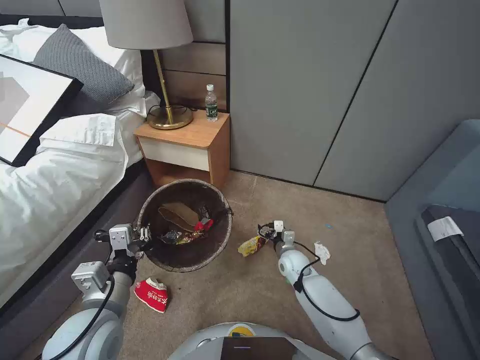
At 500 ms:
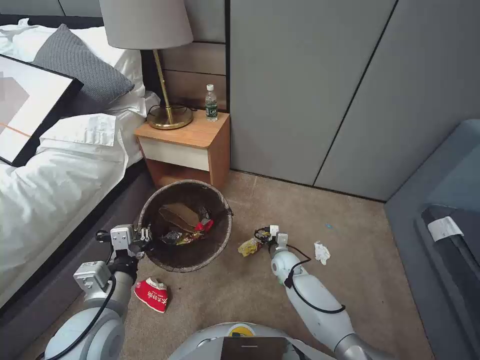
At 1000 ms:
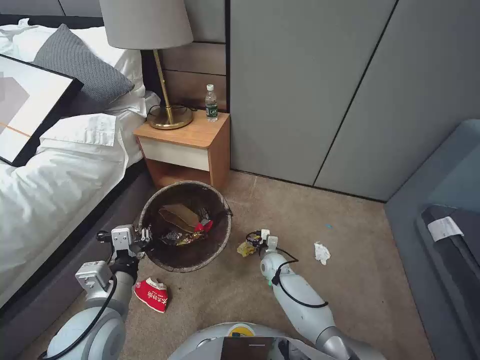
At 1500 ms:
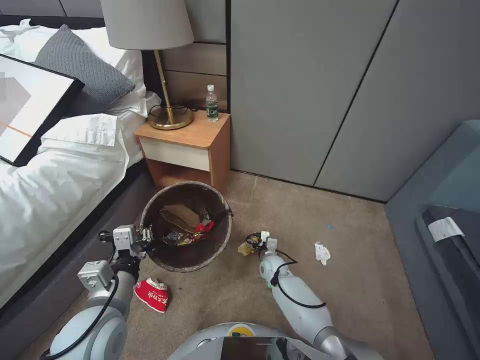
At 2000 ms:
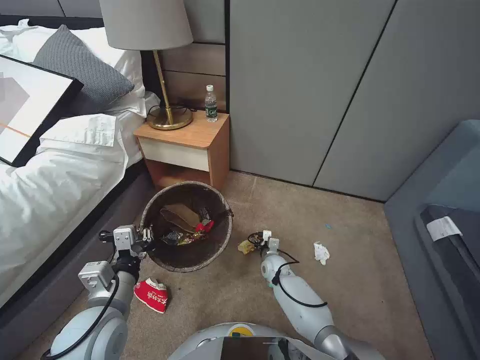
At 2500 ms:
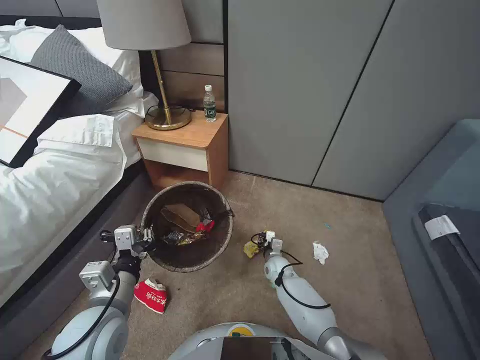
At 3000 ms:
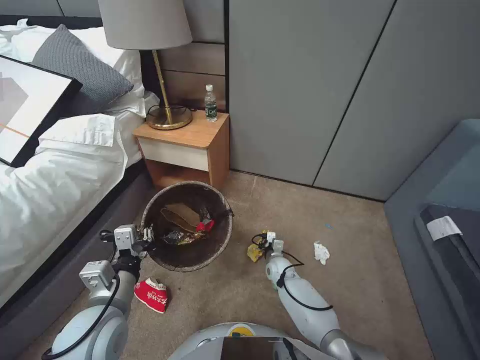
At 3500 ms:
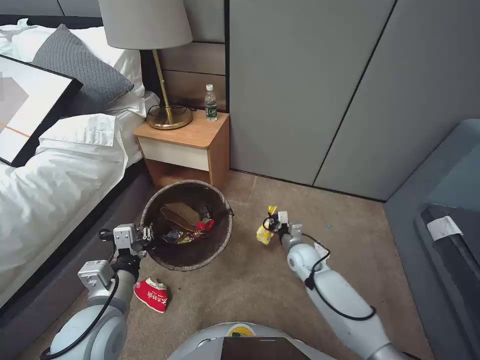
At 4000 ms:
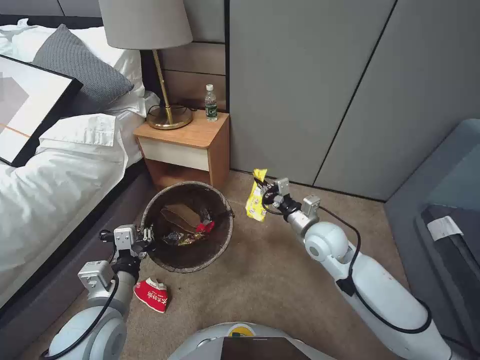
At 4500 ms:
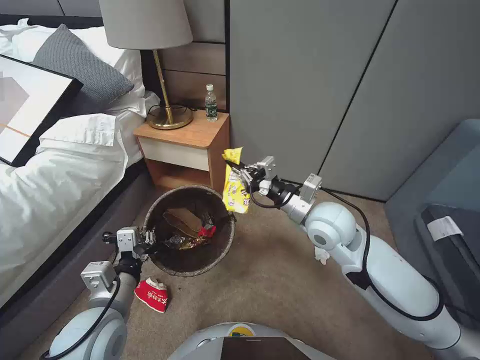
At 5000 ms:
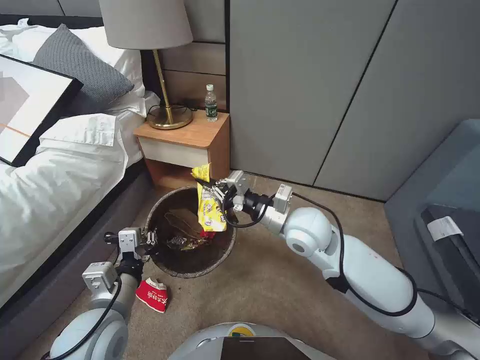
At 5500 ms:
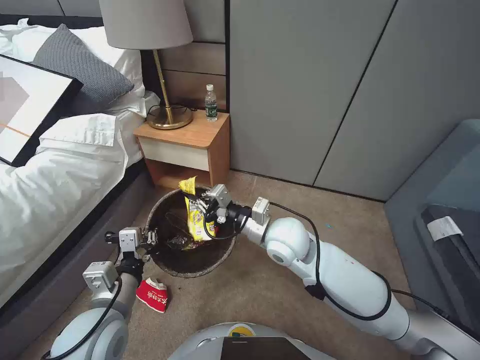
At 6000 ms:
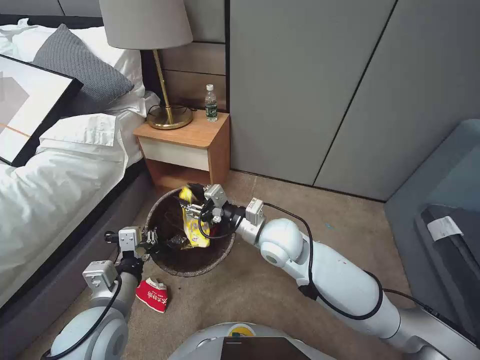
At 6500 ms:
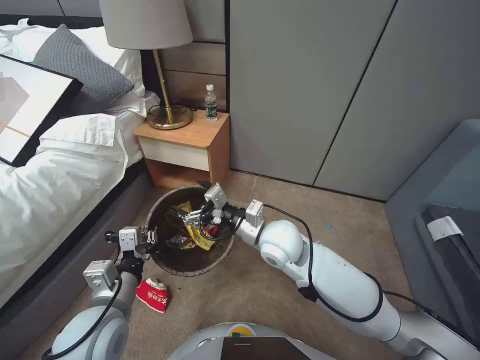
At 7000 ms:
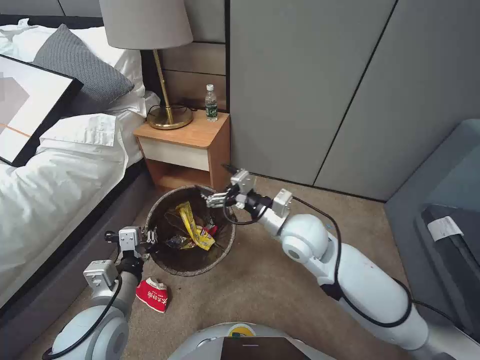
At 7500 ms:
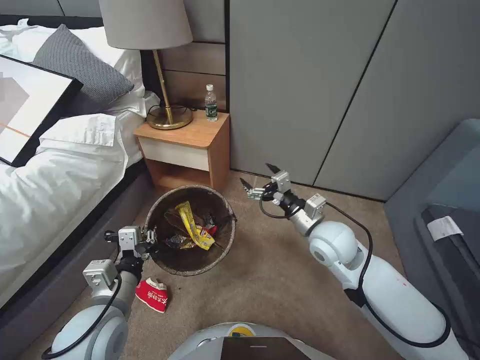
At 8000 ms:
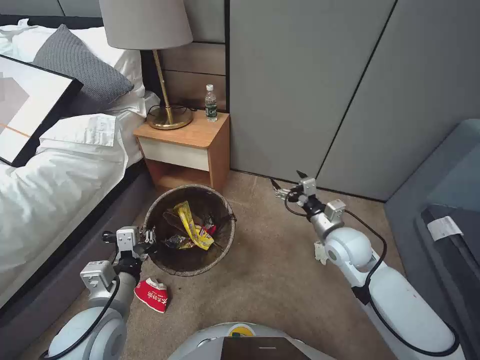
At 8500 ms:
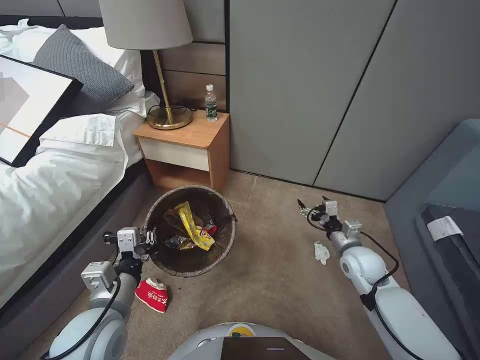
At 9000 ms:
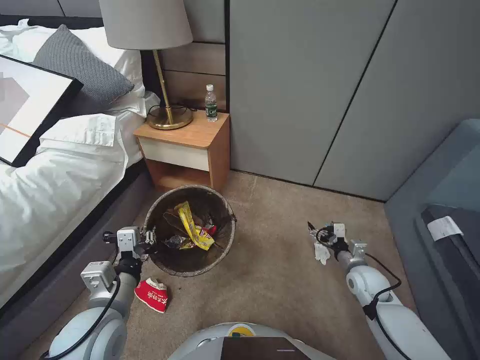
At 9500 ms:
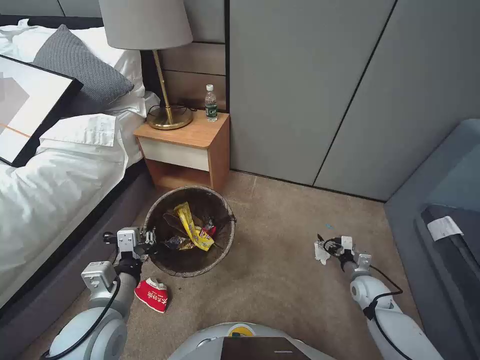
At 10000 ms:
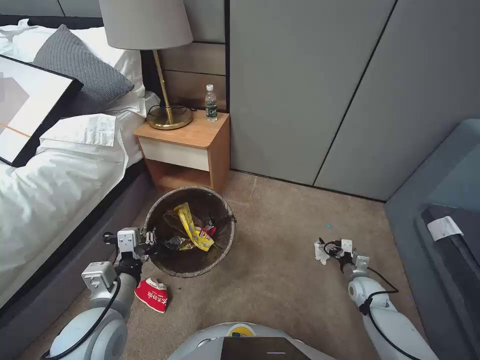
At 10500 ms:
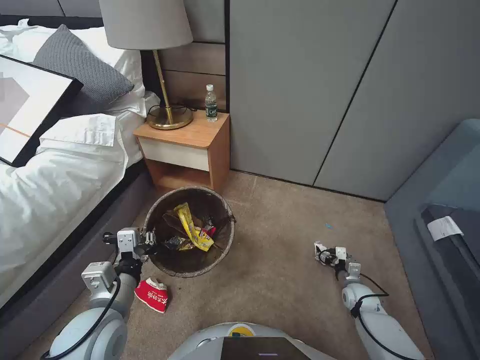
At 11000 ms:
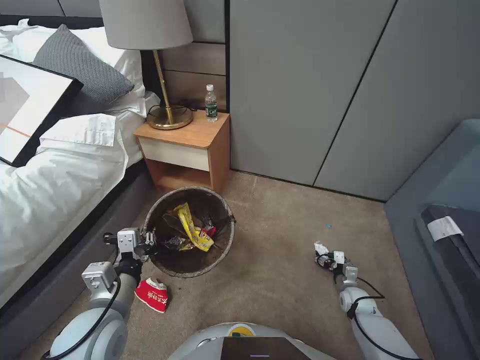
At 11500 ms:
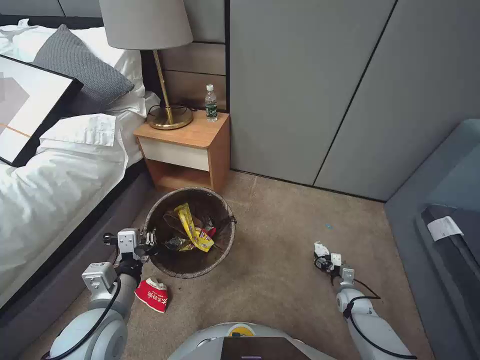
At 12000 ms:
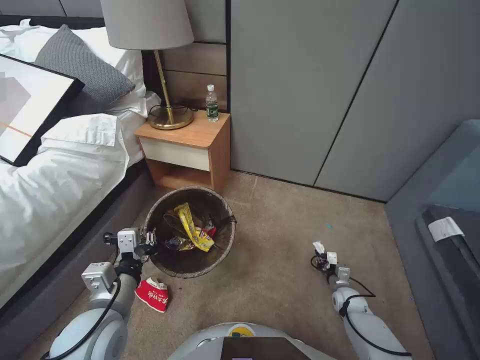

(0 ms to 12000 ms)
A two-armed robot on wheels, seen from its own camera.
Task of the whole recording: Pick up the trash bin, then pick up the garbage from the floor and place it into the trash bin.
0 ms - 2000 ms: The right gripper heads downward and to the left, covering roughly 10 cm.
2000 ms - 4000 ms: The right gripper heads upward, covering about 25 cm, and closes.
4000 ms - 6000 ms: The right gripper moves to the left and upward, roughly 15 cm, and opens up.
6000 ms - 8000 ms: The right gripper heads to the right, covering approximately 15 cm, and opens up.
8000 ms - 10000 ms: The right gripper moves downward and to the right, some 30 cm.
10000 ms - 12000 ms: The right gripper moves downward, roughly 10 cm, and closes up.

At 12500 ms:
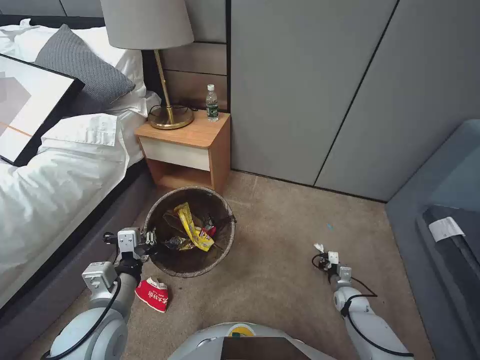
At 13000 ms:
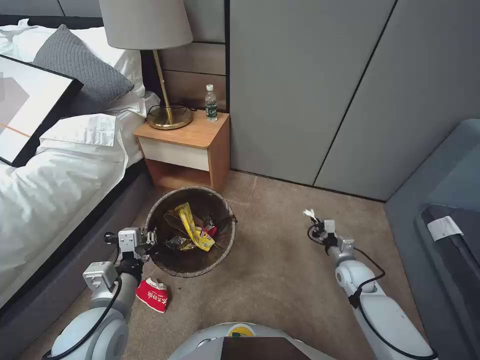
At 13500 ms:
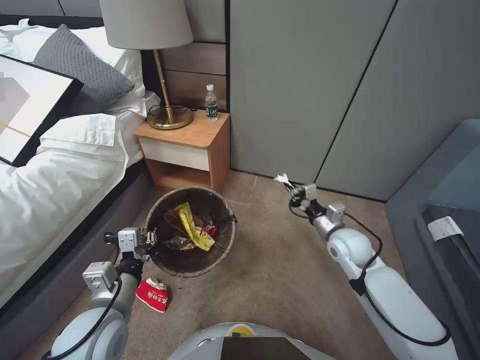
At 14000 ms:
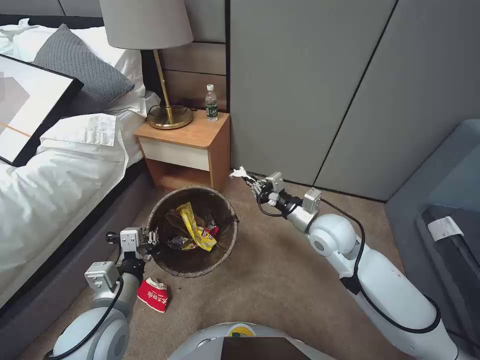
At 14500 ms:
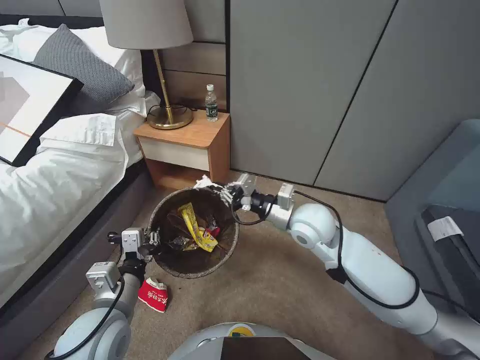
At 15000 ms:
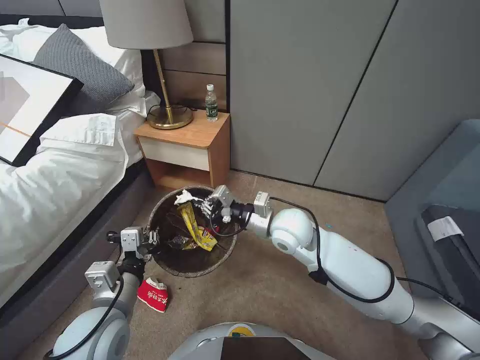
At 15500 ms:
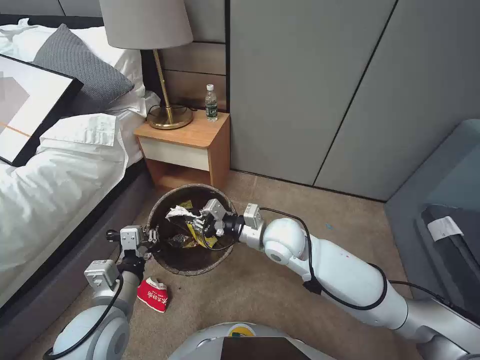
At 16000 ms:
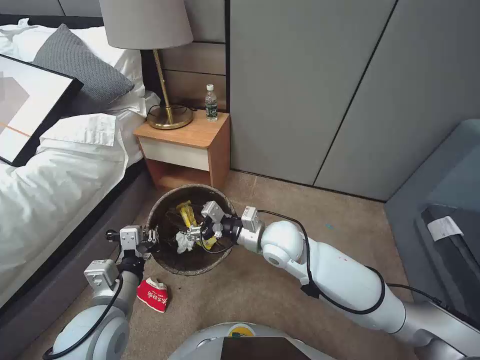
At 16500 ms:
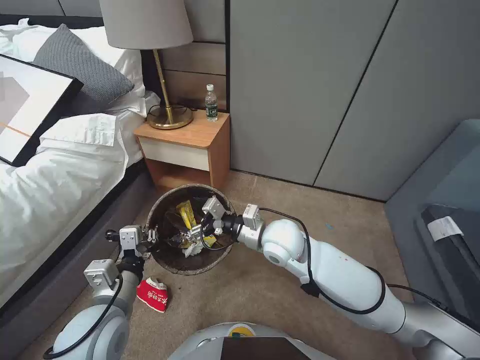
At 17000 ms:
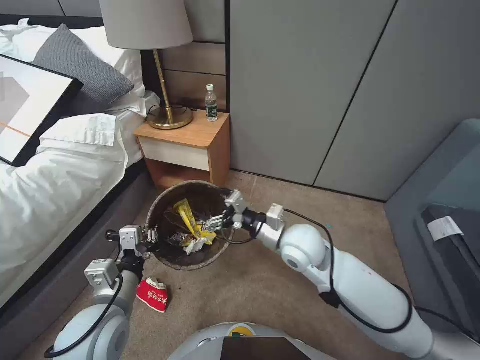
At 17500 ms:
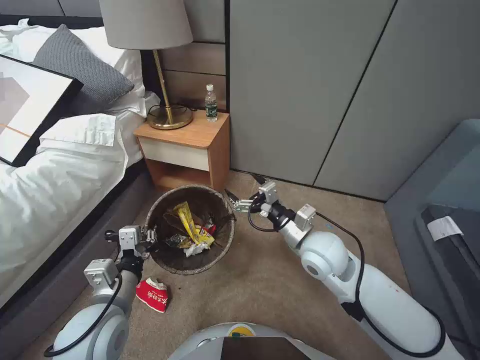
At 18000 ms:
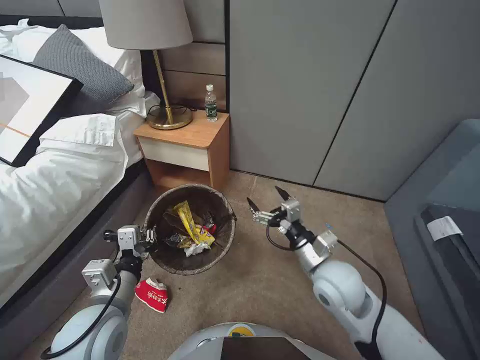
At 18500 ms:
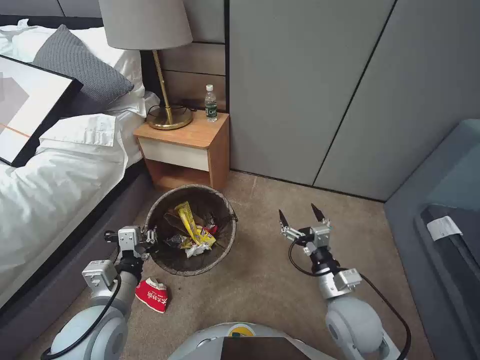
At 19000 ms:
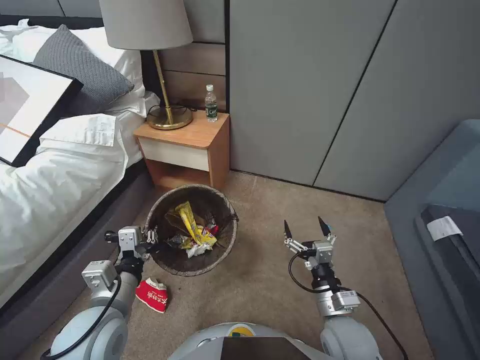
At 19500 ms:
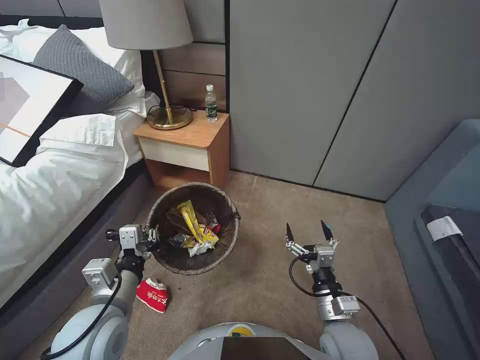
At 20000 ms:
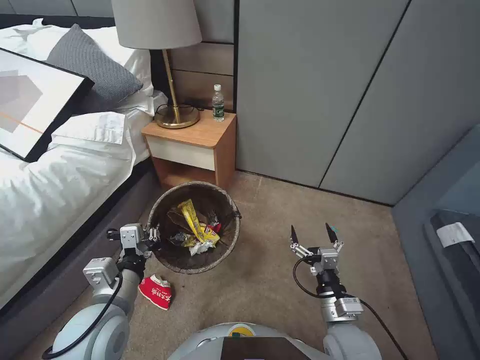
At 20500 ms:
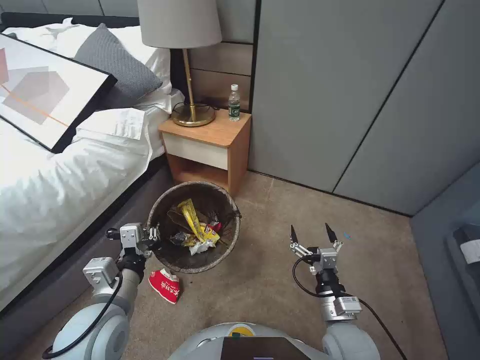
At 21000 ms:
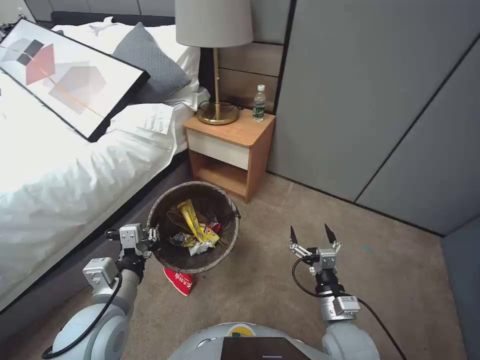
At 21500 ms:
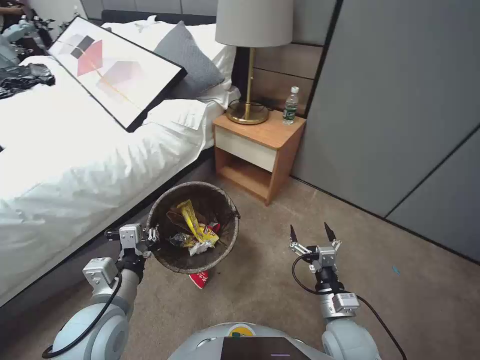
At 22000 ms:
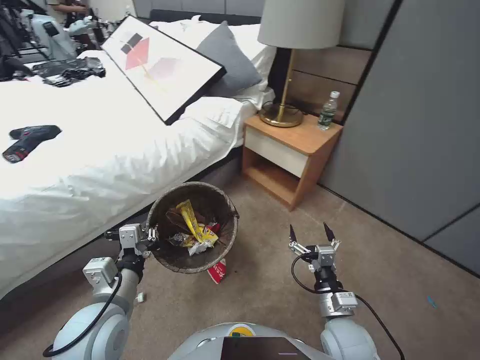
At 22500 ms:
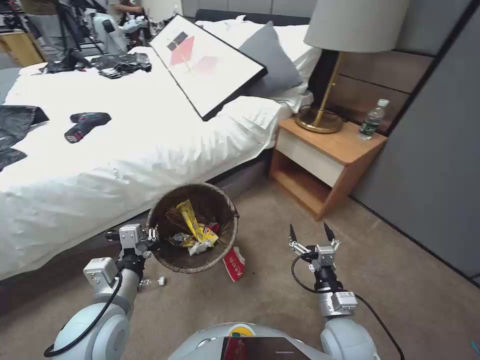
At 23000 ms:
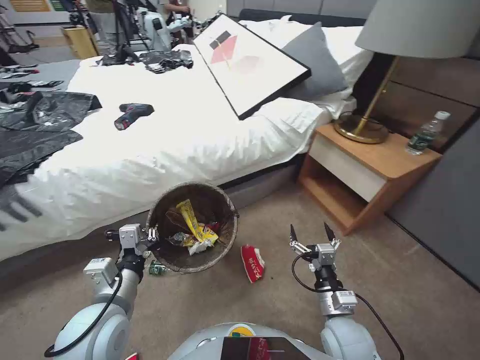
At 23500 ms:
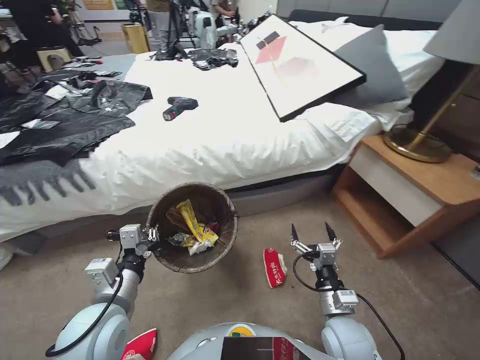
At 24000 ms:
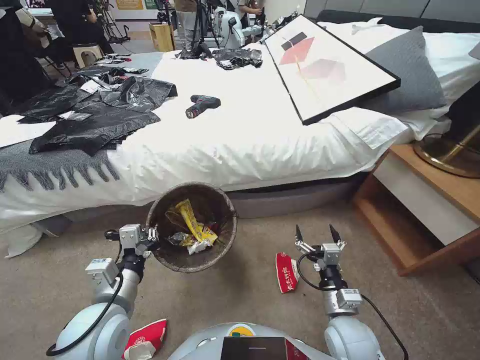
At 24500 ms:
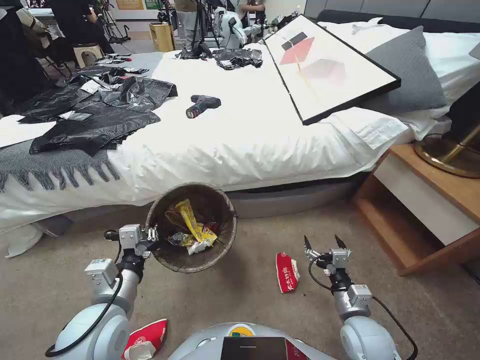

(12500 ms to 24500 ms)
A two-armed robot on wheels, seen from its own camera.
Task of the whole recording: Pick up the trash bin, then pick up the garbage from the floor and place it into the trash bin.
12500 ms - 14500 ms: The right gripper goes some 40 cm upward and to the left.
14500 ms - 16500 ms: The right gripper travels to the left by approximately 10 cm, and opens up.
16500 ms - 18500 ms: The right gripper shifts some 20 cm to the right, backward and downward.
18500 ms - 20500 ms: The right gripper heads backward and downward, covering about 10 cm.

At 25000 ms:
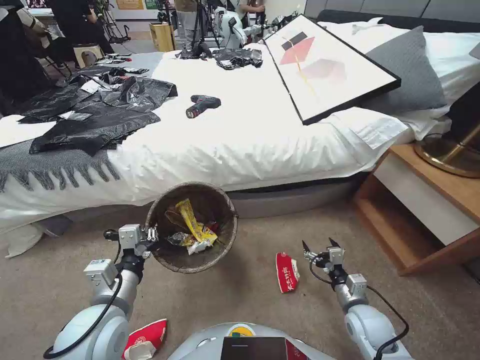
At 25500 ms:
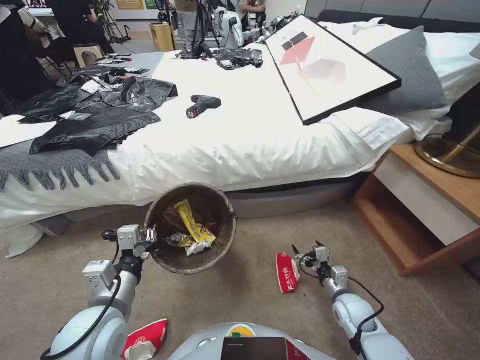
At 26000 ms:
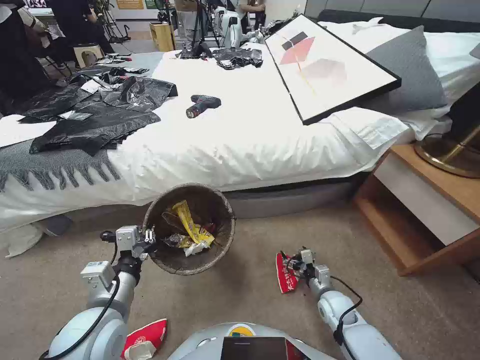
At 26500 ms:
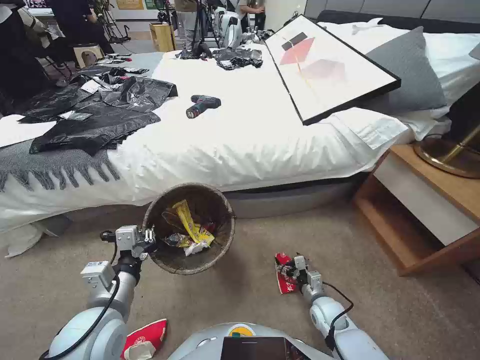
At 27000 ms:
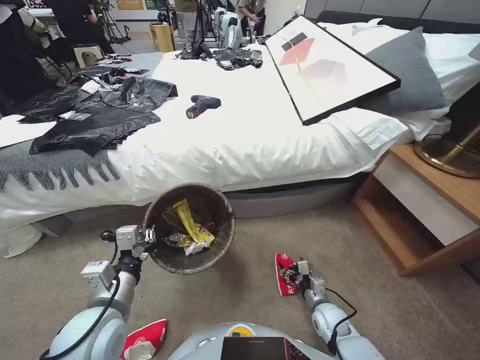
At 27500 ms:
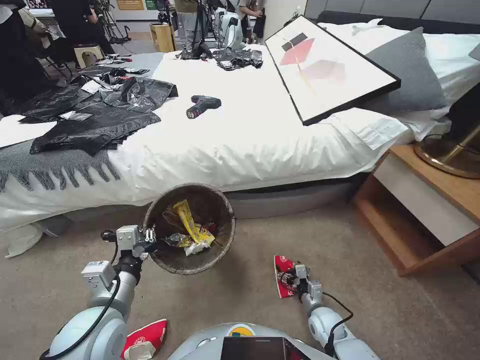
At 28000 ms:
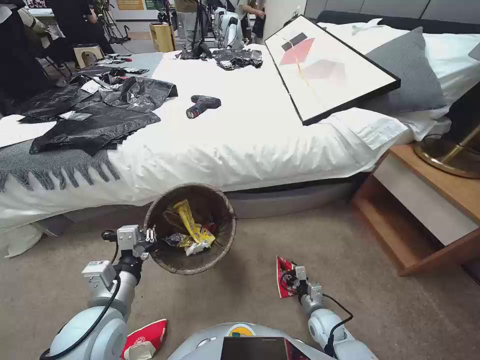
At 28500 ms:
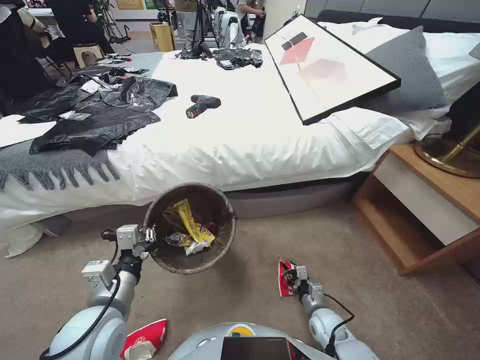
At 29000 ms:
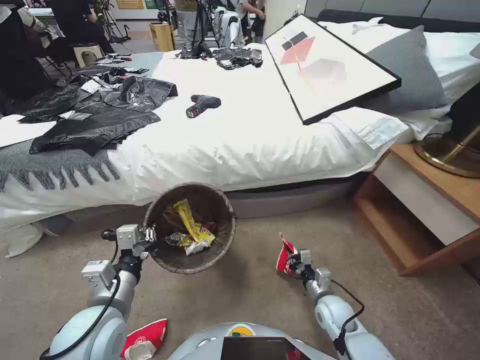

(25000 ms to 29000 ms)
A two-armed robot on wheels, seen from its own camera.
Task of the whole recording: Pick up the trash bin, then pick up the garbage from the floor and place it into the trash bin.
25000 ms - 27000 ms: The right gripper moves downward, about 10 cm.
27000 ms - 29000 ms: The right gripper closes its fingers.
